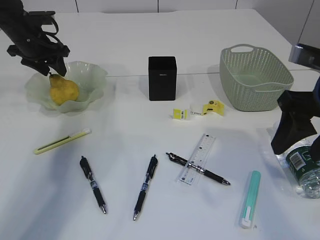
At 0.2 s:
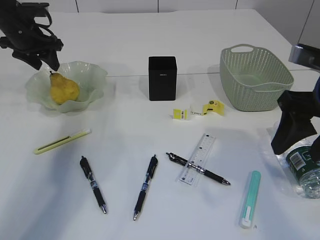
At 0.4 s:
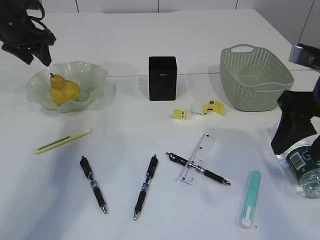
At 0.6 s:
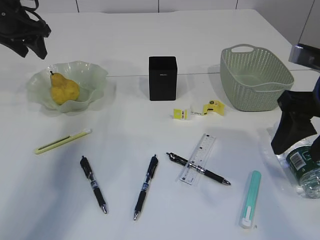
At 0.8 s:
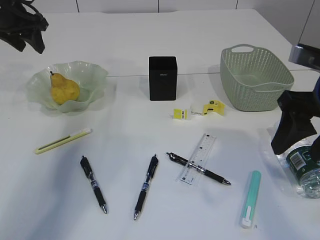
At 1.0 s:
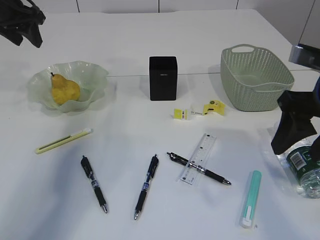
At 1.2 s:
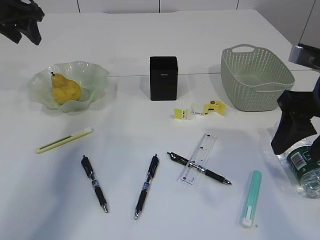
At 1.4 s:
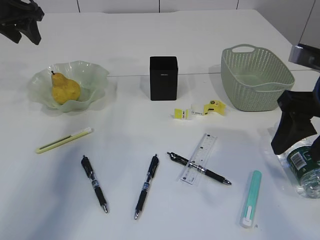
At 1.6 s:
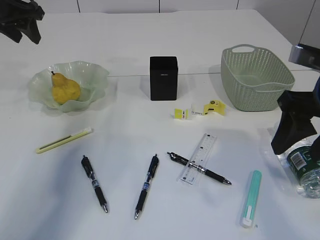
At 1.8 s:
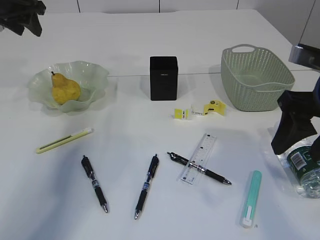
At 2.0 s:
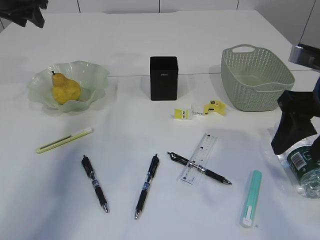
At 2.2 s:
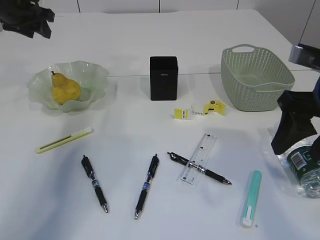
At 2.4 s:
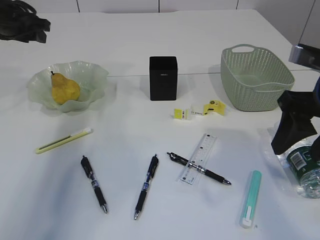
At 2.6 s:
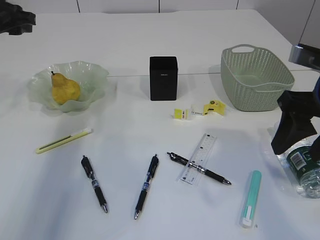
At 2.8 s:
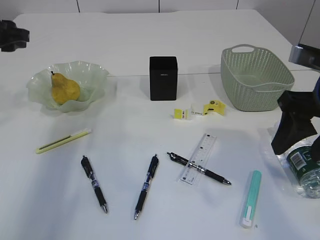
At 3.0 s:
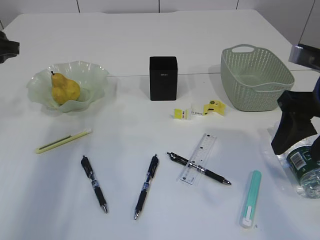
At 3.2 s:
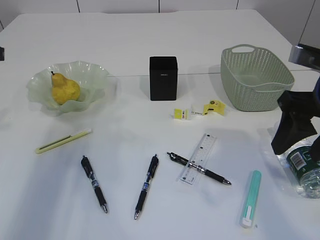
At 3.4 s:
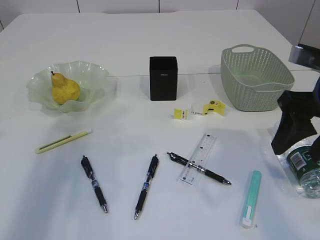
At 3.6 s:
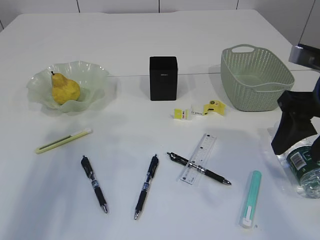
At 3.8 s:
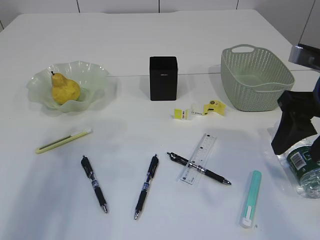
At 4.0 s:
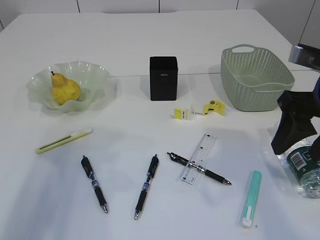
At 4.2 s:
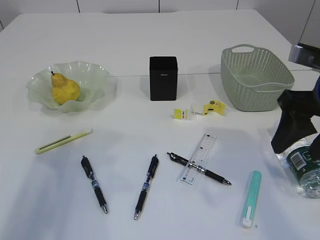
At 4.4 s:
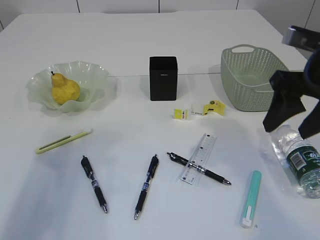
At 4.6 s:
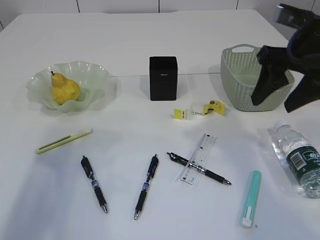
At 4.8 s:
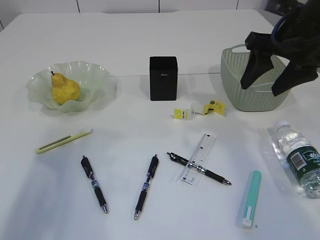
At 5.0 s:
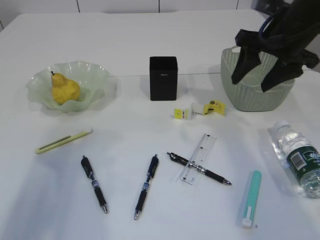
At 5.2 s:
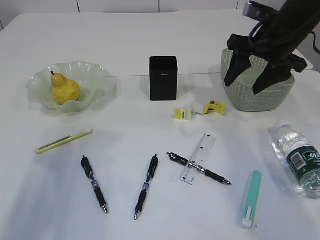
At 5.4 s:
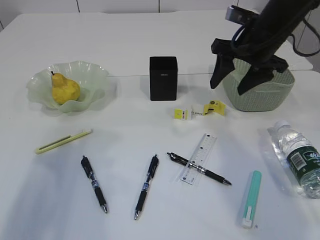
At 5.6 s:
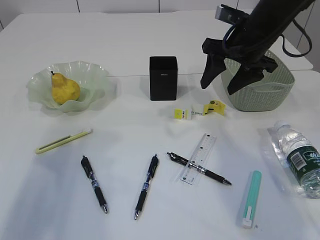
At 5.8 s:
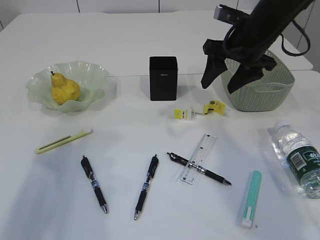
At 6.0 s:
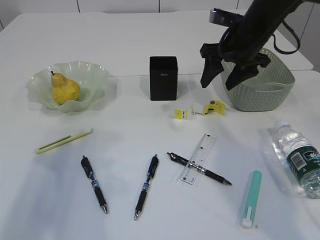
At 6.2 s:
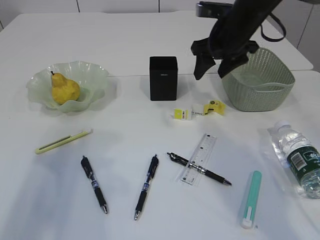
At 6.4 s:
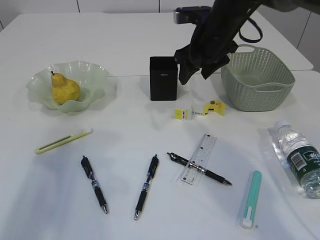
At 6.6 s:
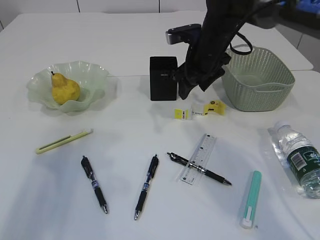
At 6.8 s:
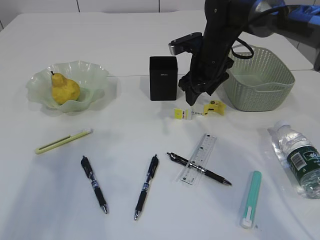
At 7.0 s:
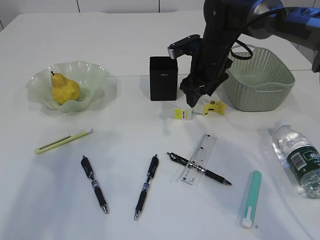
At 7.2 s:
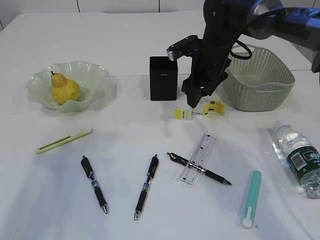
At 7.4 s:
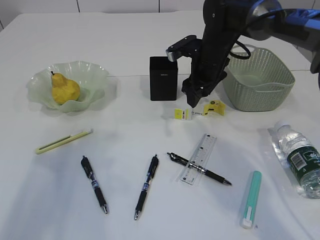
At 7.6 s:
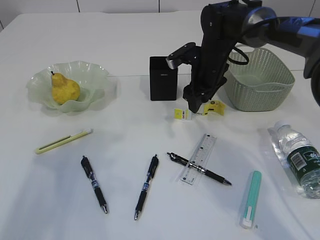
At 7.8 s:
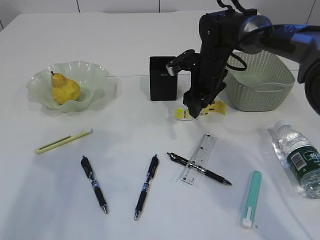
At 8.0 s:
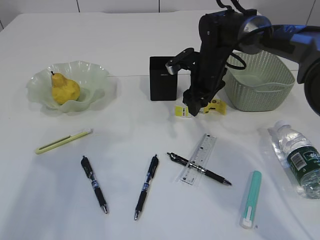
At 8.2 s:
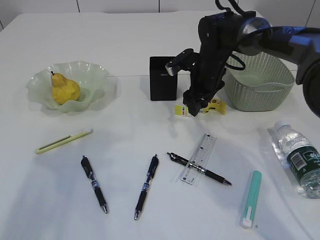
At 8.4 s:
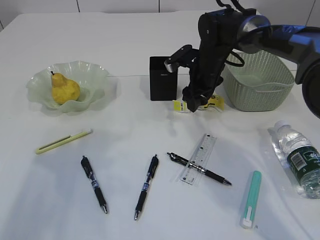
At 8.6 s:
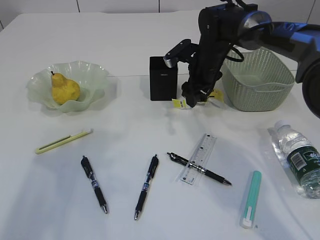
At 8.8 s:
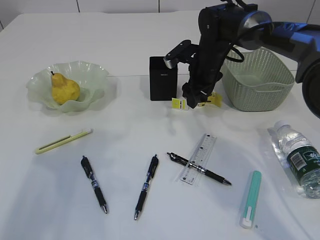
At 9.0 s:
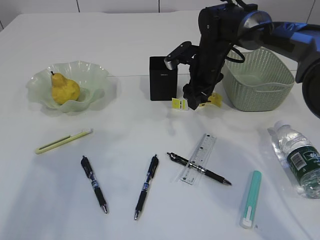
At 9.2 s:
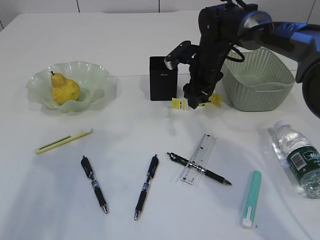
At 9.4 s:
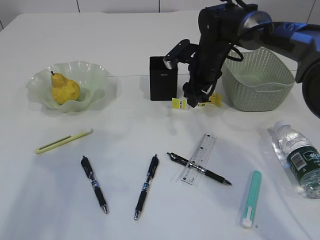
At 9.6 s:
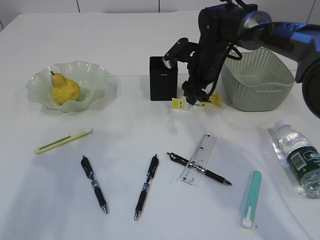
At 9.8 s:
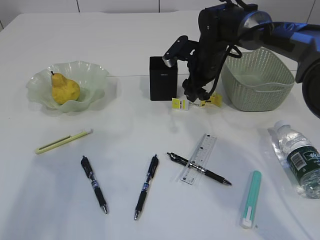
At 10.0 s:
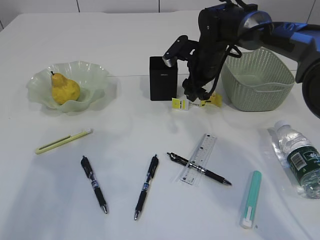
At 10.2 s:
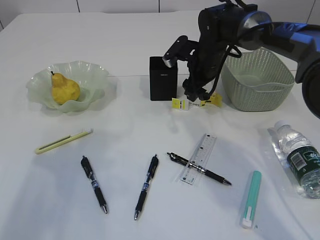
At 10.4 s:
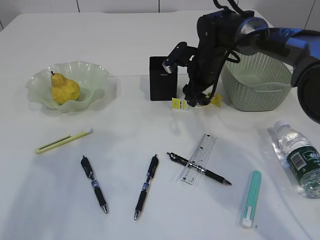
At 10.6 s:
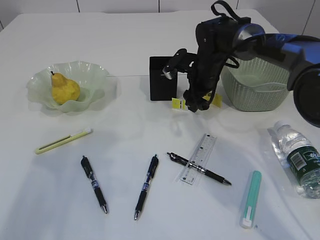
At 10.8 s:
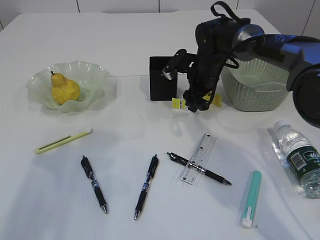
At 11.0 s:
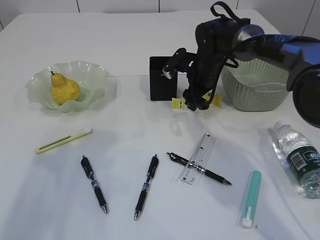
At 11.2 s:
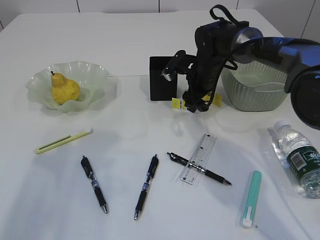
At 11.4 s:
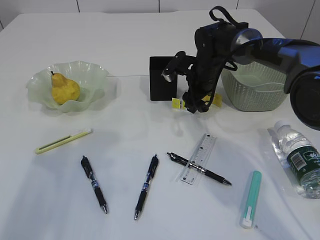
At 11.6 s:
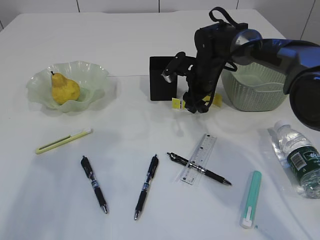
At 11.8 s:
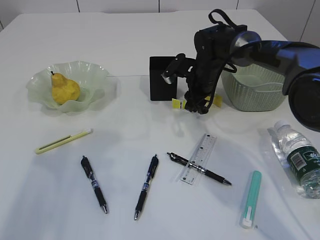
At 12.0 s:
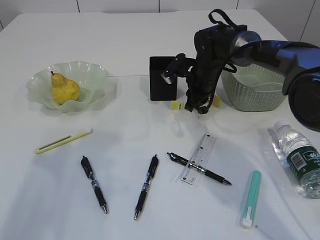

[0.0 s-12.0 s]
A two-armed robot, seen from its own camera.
0.0 to 1.6 s: The left gripper travels upward by approximately 10 cm.
1.6 to 3.0 s: The left gripper moves backward, some 10 cm.
3.0 to 4.4 s: The left gripper heads backward, covering some 15 cm.
4.4 to 6.0 s: The right gripper goes roughly 15 cm forward.
6.0 to 7.6 s: The right gripper moves downward, about 10 cm.
7.6 to 10.4 s: There are only small adjustments of the grippers.
10.4 to 12.0 s: The right gripper closes its fingers.

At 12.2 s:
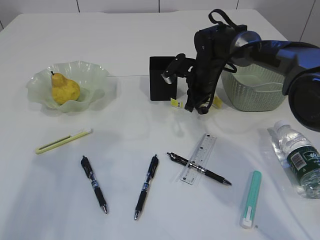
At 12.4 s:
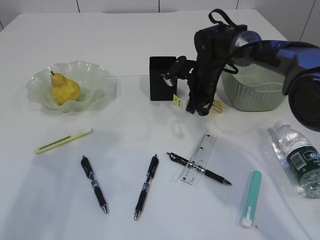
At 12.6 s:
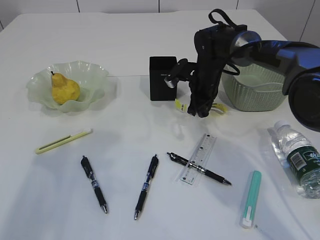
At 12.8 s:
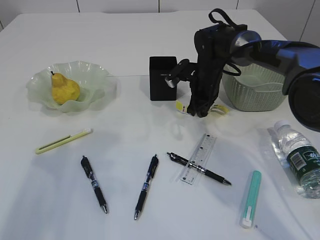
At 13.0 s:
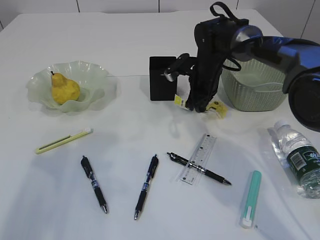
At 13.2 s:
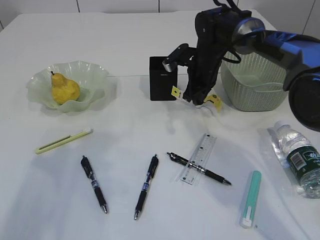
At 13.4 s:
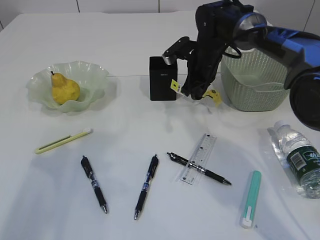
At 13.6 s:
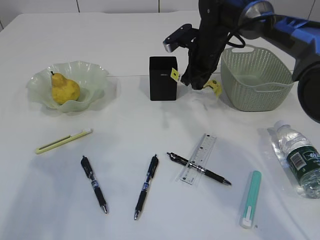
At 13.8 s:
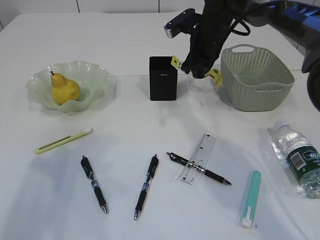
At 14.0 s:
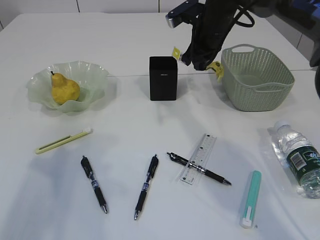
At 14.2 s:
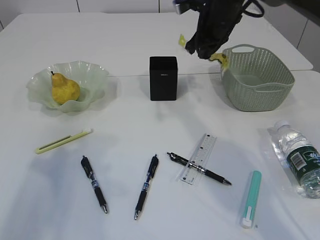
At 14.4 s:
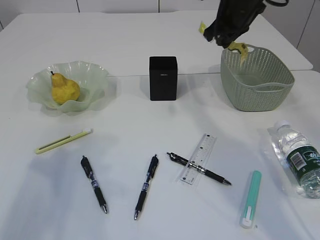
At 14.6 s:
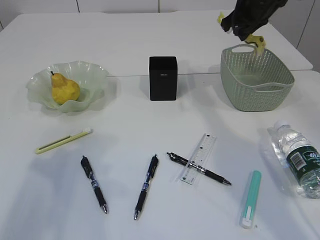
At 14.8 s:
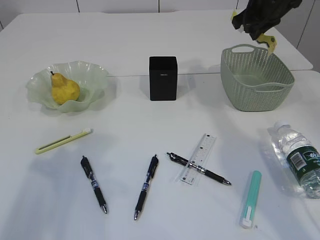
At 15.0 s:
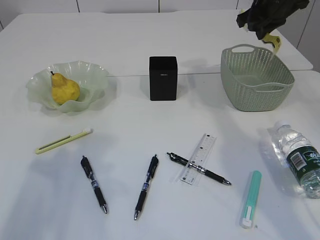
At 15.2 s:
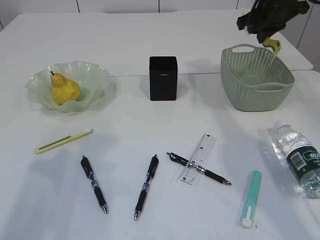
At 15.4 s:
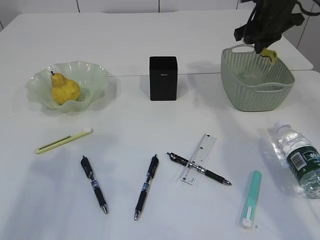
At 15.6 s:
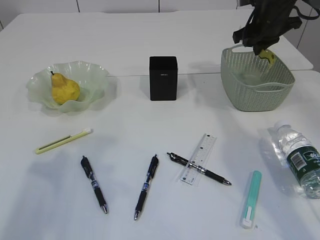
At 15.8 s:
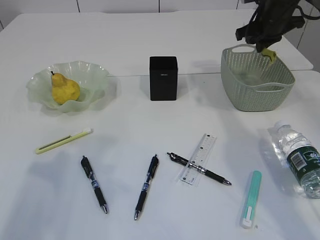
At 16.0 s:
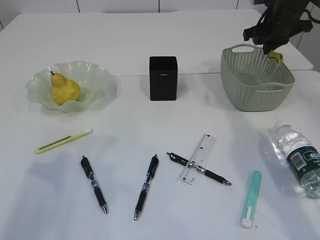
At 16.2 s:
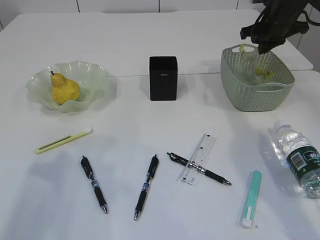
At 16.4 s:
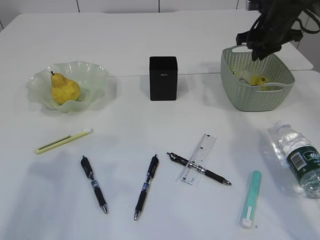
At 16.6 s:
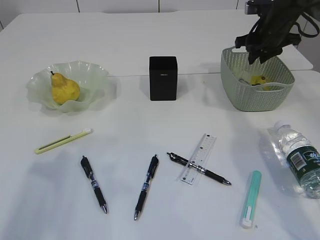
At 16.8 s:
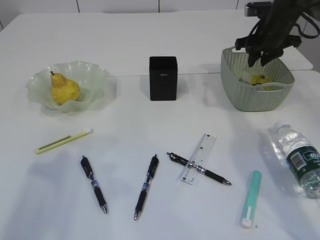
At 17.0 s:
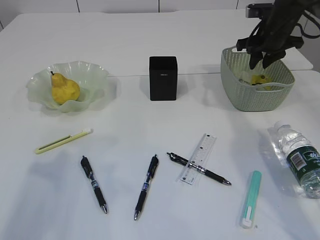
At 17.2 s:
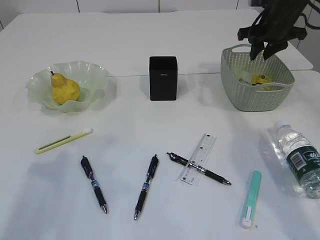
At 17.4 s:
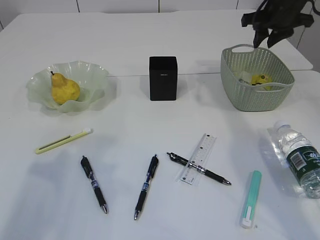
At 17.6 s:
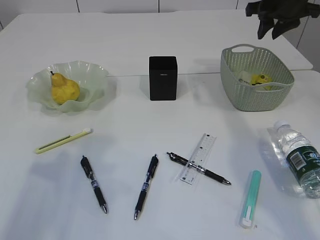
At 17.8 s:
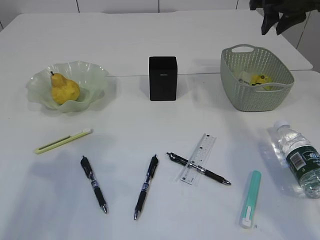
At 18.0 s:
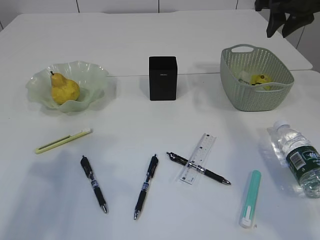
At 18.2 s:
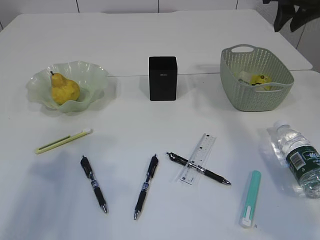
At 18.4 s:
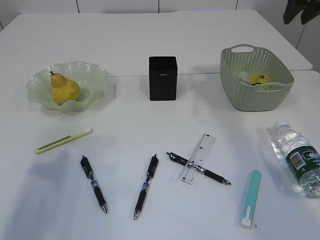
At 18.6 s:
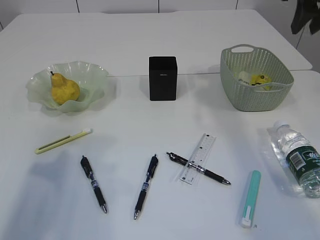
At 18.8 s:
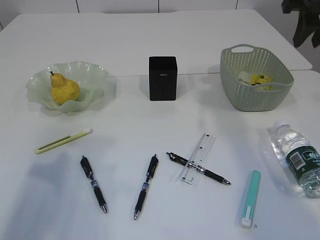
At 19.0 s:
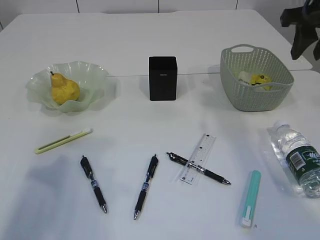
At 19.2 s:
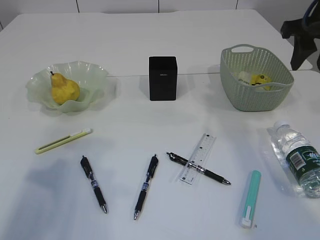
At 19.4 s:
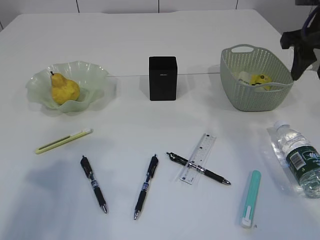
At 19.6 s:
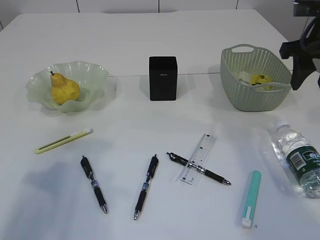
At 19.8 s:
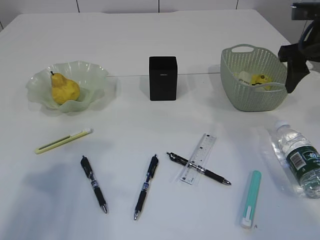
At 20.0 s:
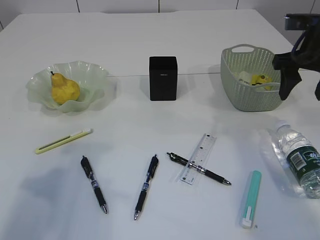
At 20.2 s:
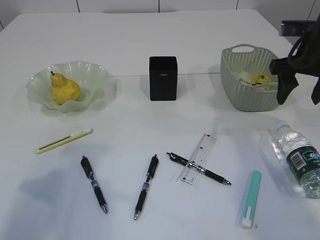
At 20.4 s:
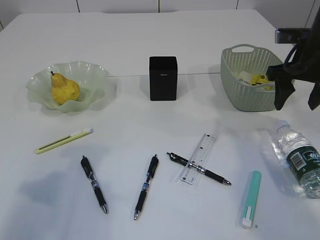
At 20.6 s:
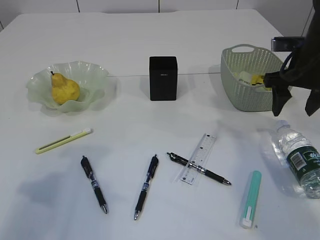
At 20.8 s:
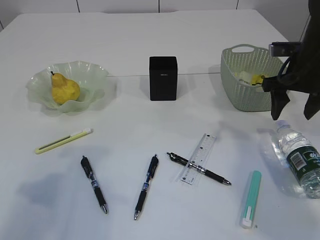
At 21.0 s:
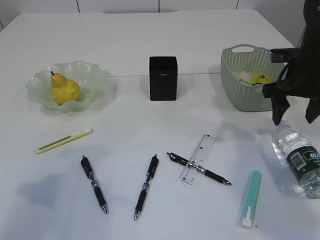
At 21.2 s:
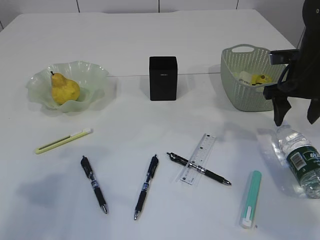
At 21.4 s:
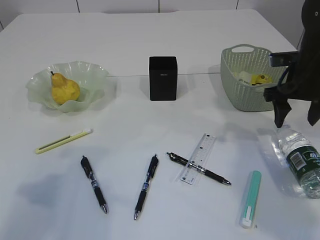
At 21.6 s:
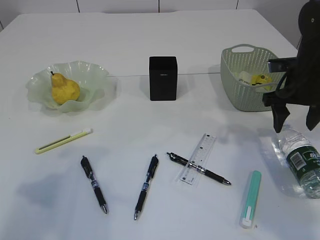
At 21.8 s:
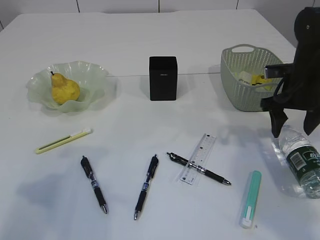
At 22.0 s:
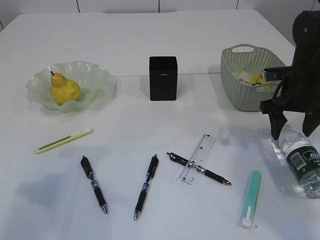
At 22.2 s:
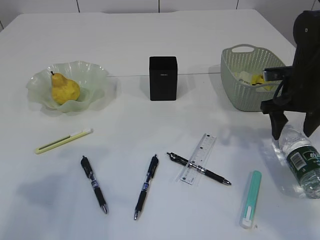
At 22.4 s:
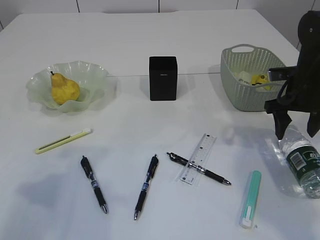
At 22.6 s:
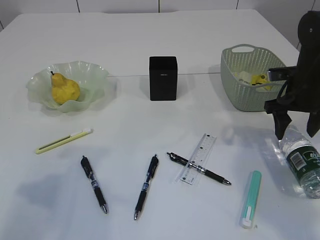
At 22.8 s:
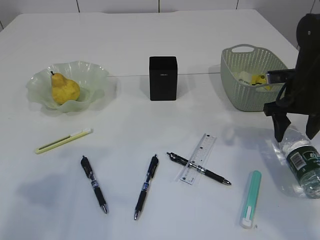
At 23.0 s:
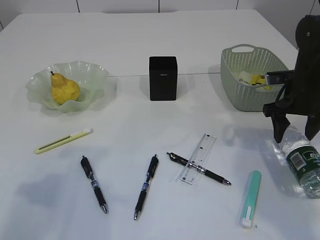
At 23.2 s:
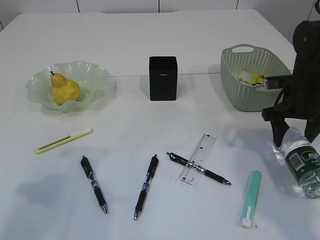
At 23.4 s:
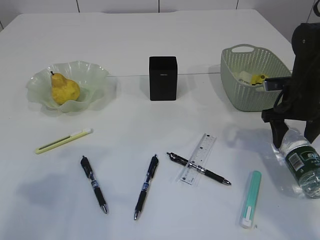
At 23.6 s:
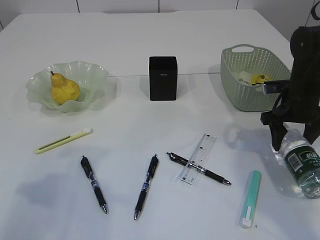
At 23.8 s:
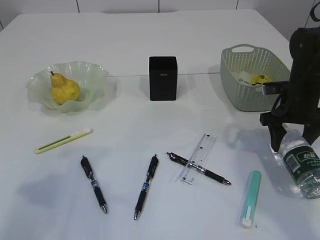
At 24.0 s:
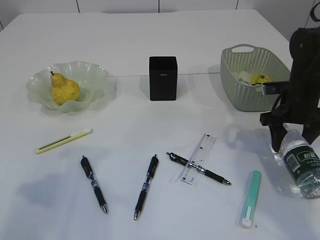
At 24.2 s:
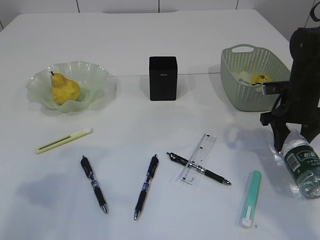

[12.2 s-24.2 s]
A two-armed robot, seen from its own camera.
Step, 14.0 to 16.8 s: Place the plastic in the basket.
12.2 to 13.8 s: The right gripper shifts some 10 cm upward.
13.8 to 15.2 s: The right gripper heads to the right and upward, covering roughly 15 cm.
15.2 to 16.6 s: The right gripper shifts some 5 cm downward.
16.6 to 18.2 s: The right gripper travels upward and backward by about 15 cm.
18.2 to 19.8 s: The right gripper travels backward and downward by about 10 cm, and opens up.
19.8 to 21.2 s: The right gripper travels downward by about 10 cm.
21.2 to 22.6 s: The grippers stay close to where they were, moving slightly.
22.6 to 24.2 s: The grippers move only a little.
